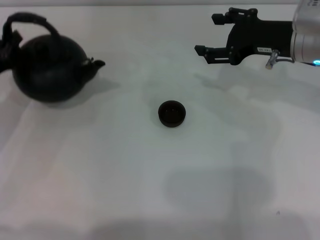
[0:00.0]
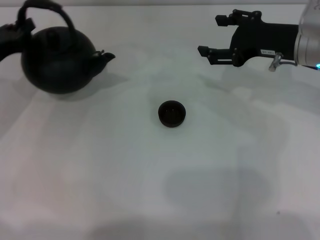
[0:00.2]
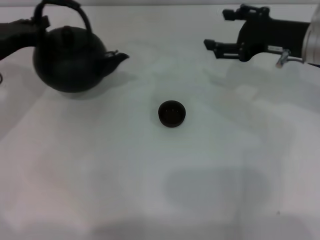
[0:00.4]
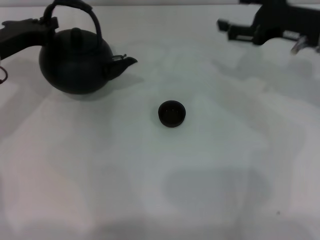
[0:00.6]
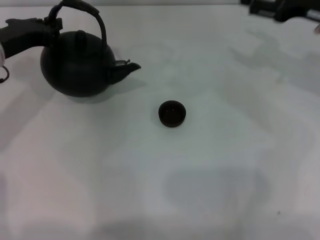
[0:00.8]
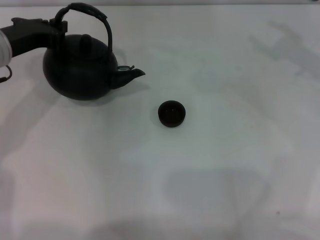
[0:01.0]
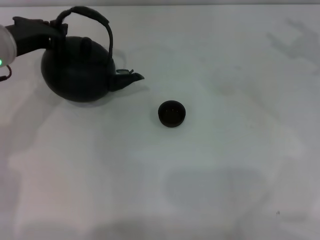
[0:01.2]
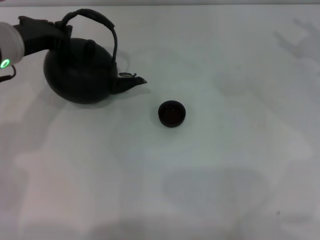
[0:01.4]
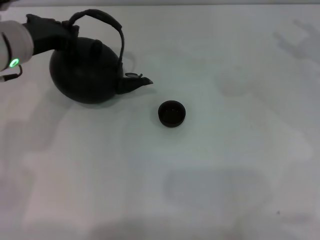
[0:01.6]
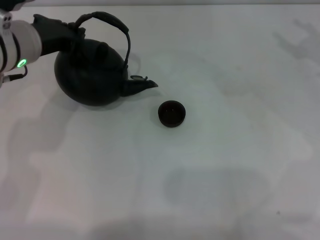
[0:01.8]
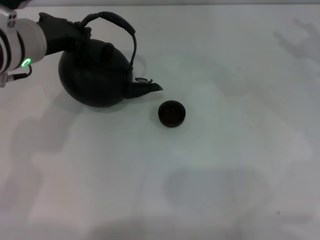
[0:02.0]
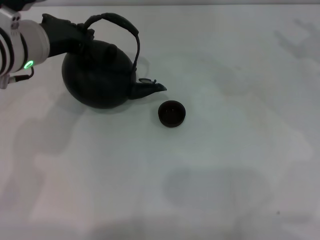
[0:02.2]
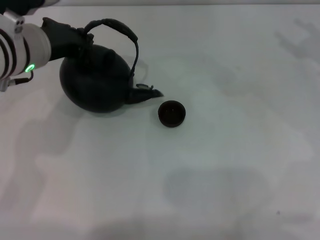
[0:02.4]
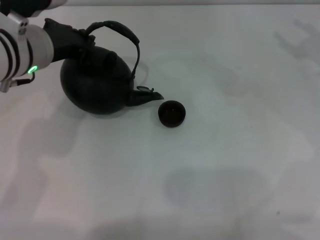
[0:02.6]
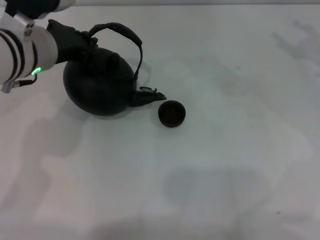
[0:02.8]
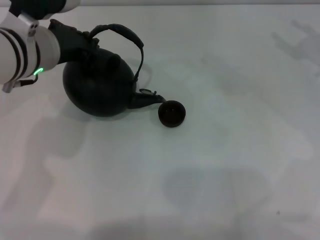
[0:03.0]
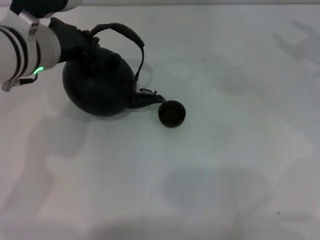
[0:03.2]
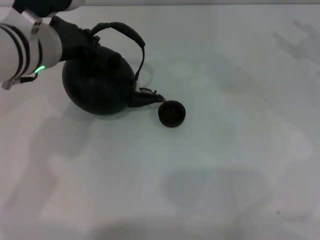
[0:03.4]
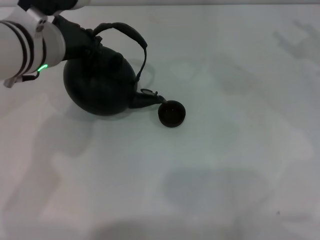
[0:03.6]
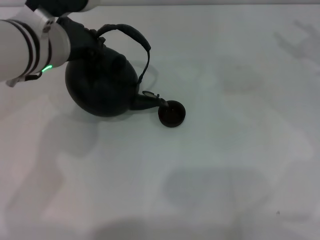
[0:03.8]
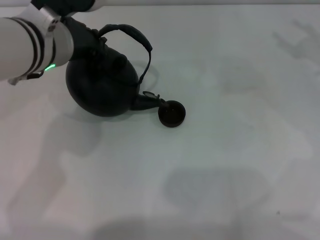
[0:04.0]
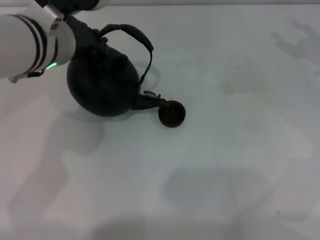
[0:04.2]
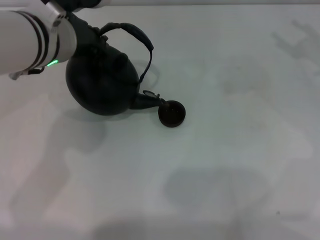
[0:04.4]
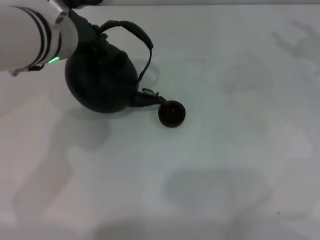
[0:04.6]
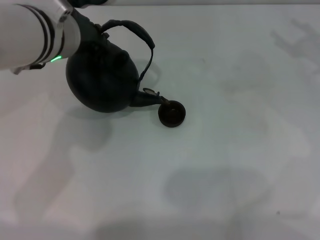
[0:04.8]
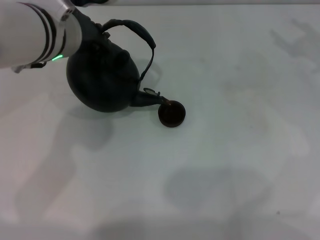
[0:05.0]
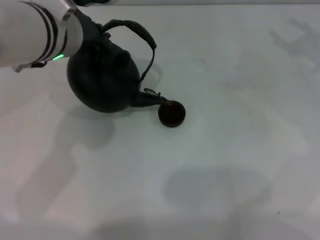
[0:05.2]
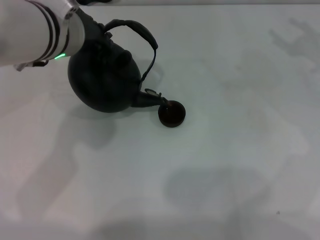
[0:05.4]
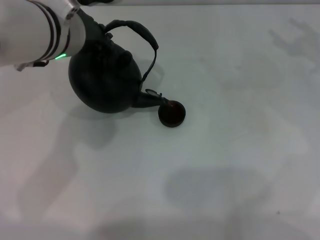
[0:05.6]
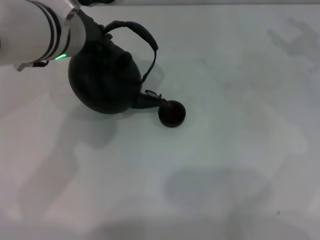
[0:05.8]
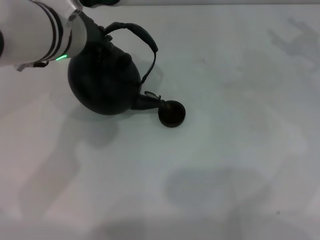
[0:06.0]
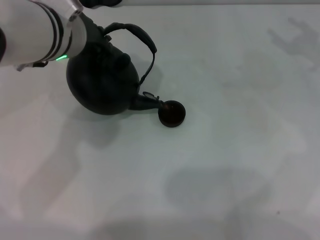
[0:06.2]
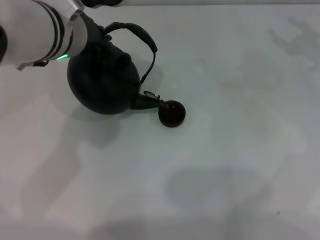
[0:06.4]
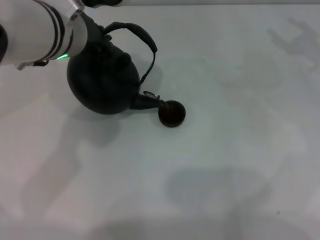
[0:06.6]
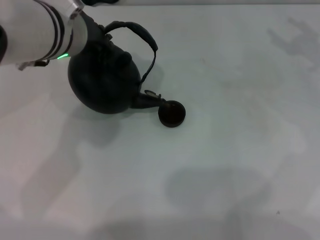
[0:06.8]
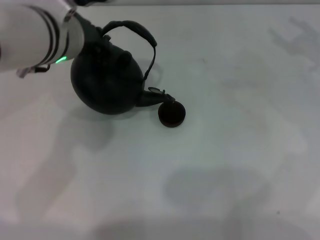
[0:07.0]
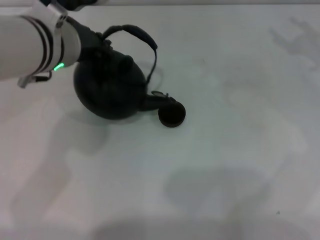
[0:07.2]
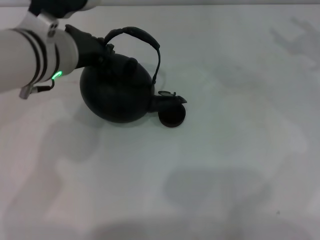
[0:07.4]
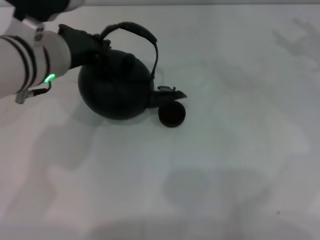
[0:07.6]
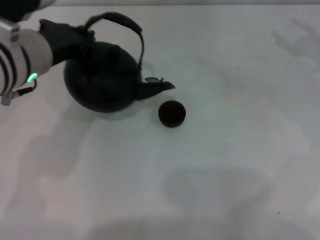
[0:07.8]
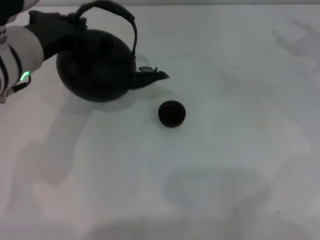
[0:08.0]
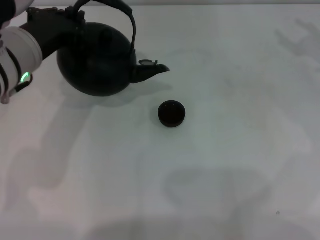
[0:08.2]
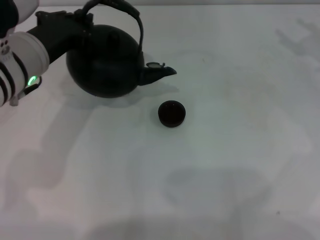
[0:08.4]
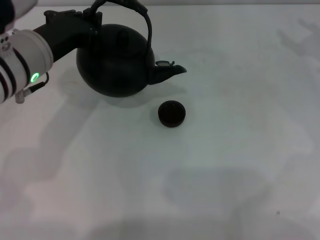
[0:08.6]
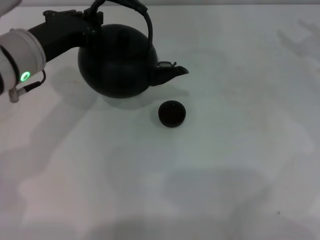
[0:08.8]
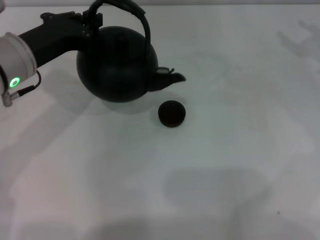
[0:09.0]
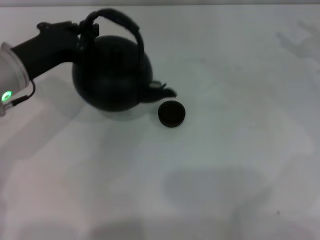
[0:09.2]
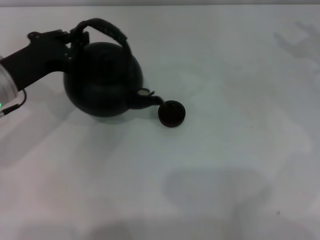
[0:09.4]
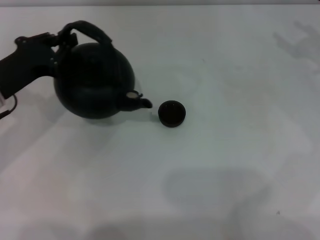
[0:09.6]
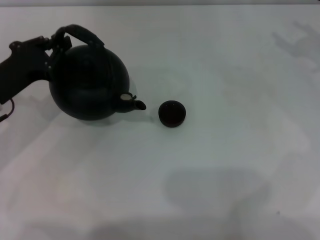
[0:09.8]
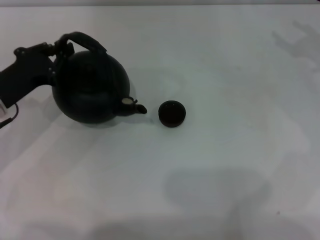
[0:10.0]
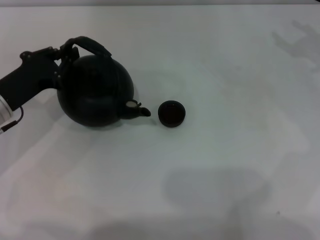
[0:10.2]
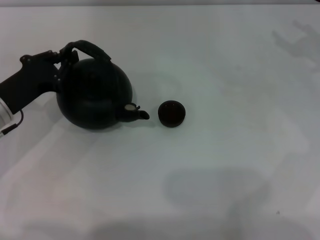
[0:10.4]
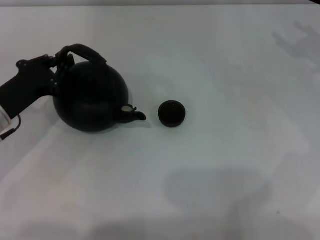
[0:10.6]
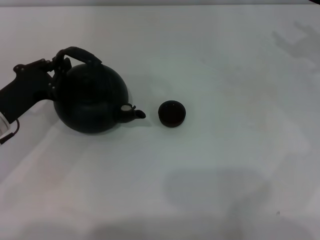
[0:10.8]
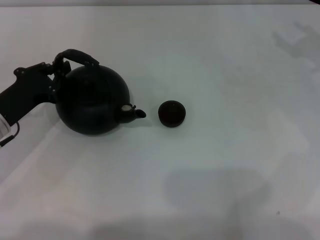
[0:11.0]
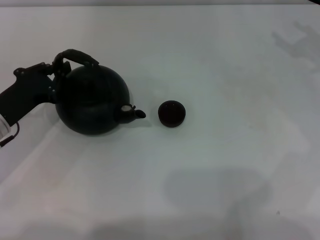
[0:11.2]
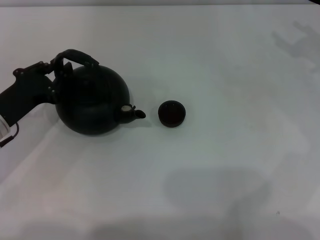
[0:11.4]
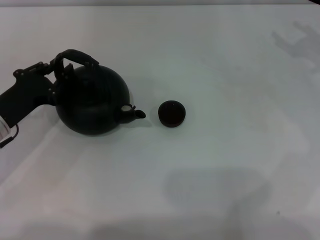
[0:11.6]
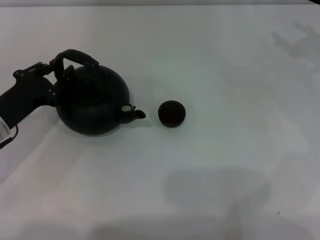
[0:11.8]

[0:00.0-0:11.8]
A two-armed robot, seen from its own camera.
Task of the whole recording: Grasp the handle of the teapot with one hand and pour tea into the teacup.
Step, 0:00.0 to 0:02.0: Pick up the teapot with the left gripper.
Step, 0:02.2 to 0:07.6: Pour tea into the teacup with the left gripper.
0:00.0 to 0:01.4: The right gripper shifts approximately 15 cm to the right. The left gripper travels upward, to the right and forward by approximately 15 cm.
0:01.4 to 0:03.0: The left gripper heads to the right, covering about 5 cm.
0:03.0 to 0:07.4: The grippers stay close to where they were, moving slightly.
0:07.4 to 0:08.8: The left gripper is displaced to the left by some 5 cm.
0:08.8 to 0:10.4: The left gripper heads downward and to the left, covering approximately 15 cm.
0:10.4 to 0:11.8: The grippers stay close to where they were, moving slightly.

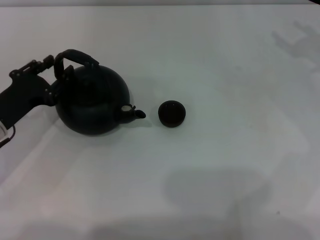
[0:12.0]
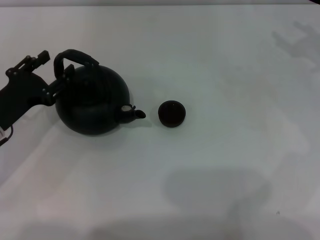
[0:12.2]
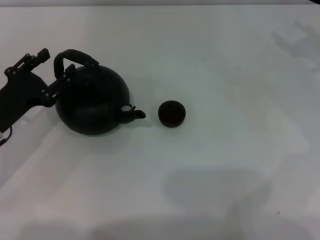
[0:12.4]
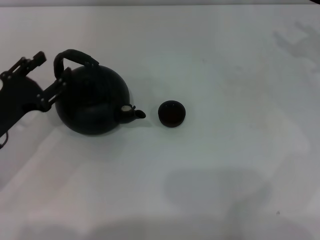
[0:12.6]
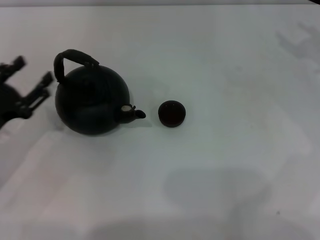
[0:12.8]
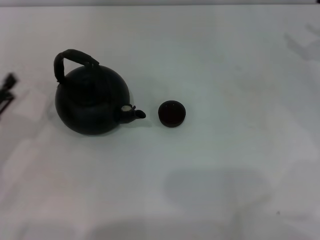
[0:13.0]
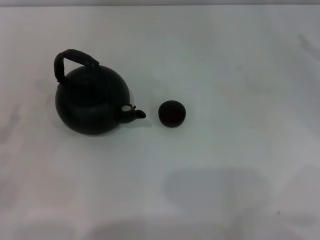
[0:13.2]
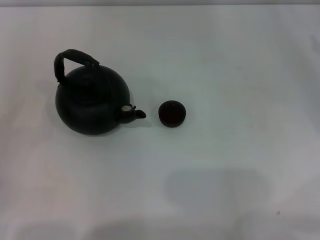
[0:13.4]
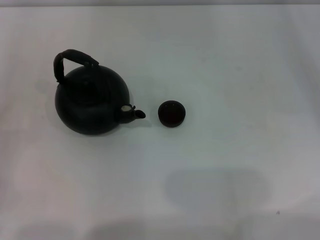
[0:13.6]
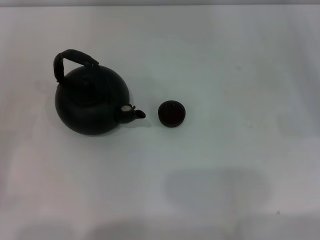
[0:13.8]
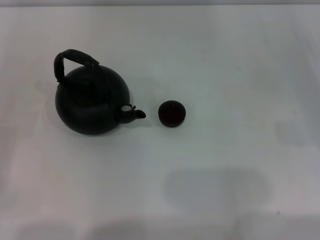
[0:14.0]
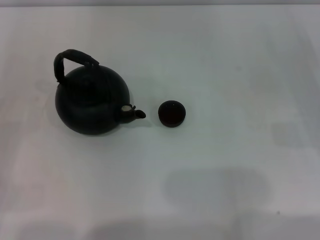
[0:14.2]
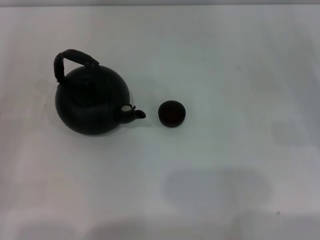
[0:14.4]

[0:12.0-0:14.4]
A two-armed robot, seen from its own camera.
Task of the whole recording: Grasp the handle of the teapot with one hand and pour tea into the teacup.
0:12.0 to 0:13.2: The left gripper heads backward and to the left, covering roughly 15 cm, and opens.

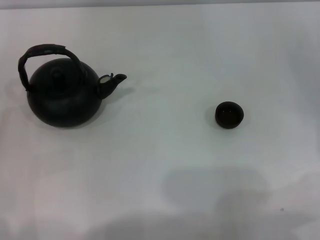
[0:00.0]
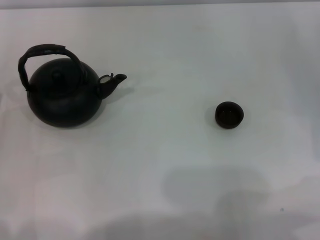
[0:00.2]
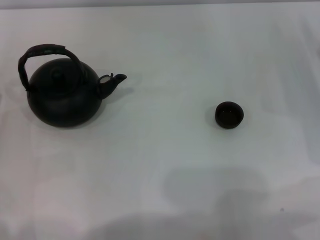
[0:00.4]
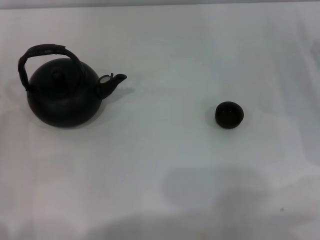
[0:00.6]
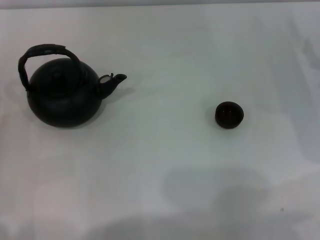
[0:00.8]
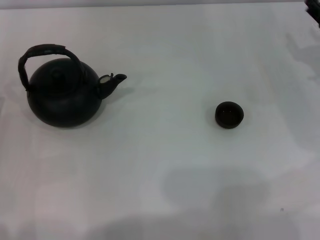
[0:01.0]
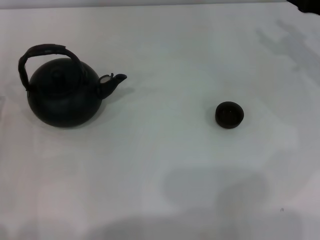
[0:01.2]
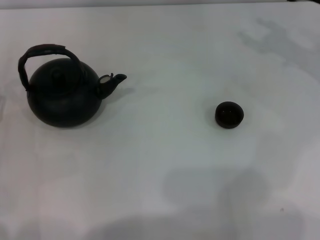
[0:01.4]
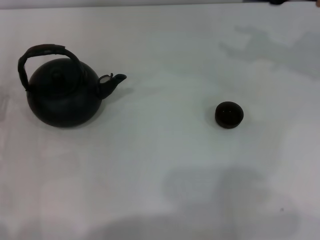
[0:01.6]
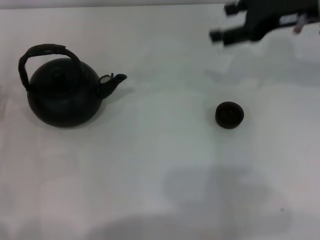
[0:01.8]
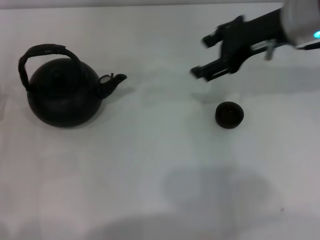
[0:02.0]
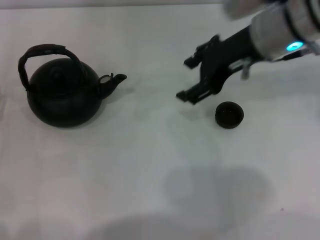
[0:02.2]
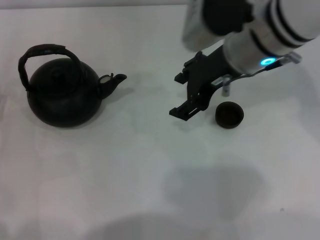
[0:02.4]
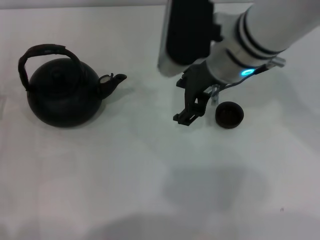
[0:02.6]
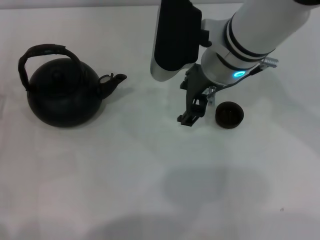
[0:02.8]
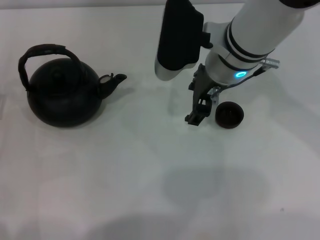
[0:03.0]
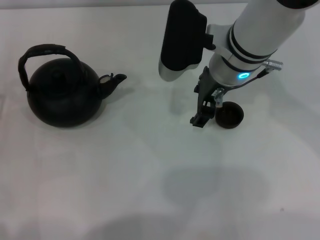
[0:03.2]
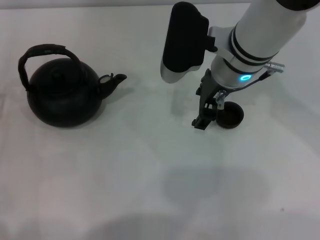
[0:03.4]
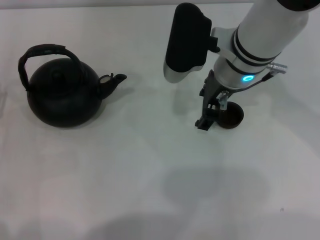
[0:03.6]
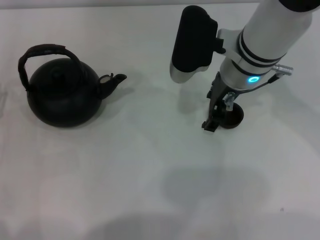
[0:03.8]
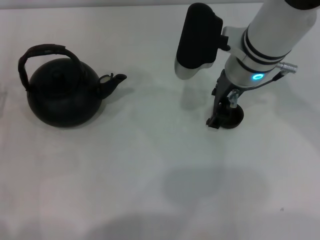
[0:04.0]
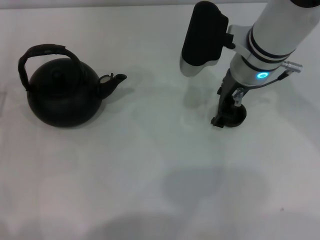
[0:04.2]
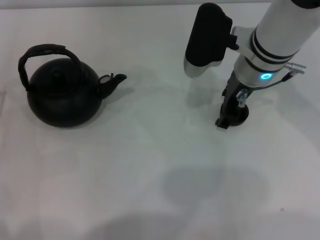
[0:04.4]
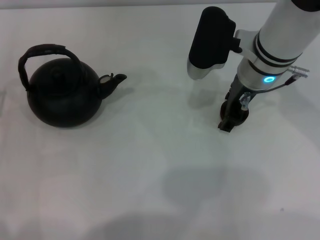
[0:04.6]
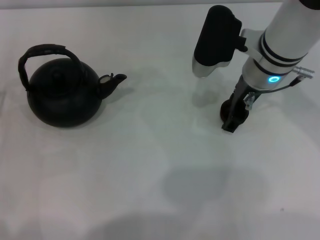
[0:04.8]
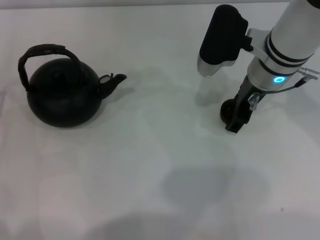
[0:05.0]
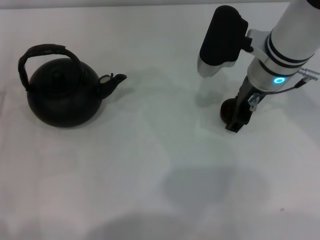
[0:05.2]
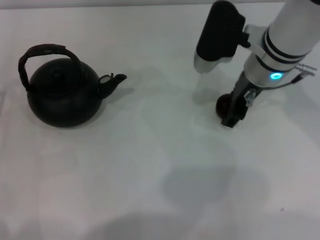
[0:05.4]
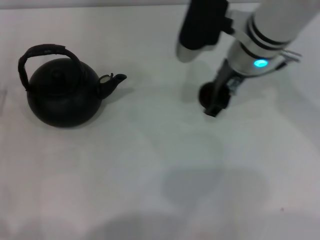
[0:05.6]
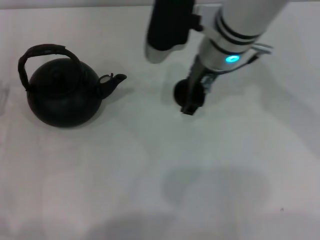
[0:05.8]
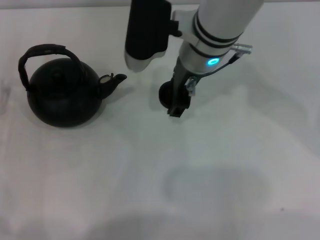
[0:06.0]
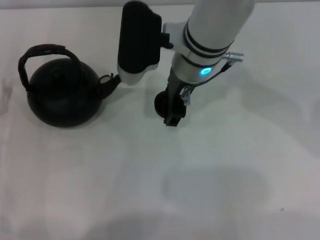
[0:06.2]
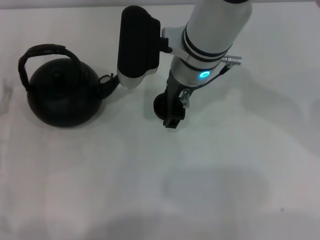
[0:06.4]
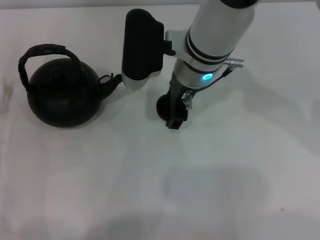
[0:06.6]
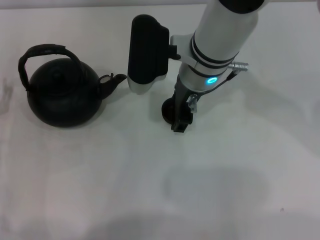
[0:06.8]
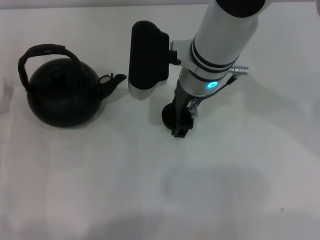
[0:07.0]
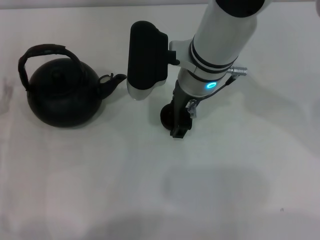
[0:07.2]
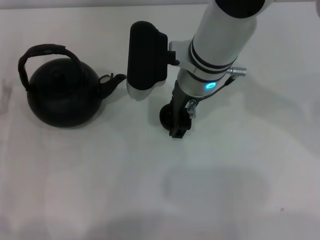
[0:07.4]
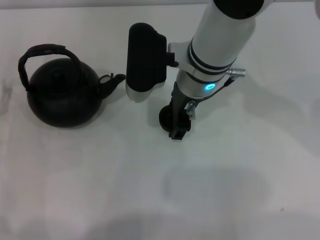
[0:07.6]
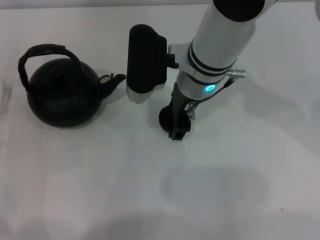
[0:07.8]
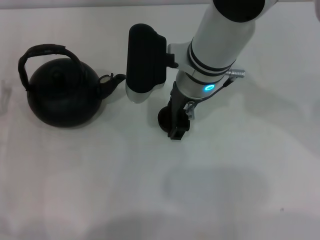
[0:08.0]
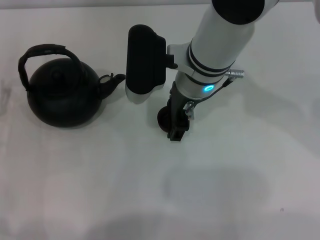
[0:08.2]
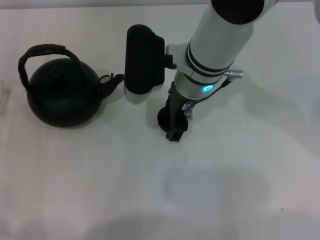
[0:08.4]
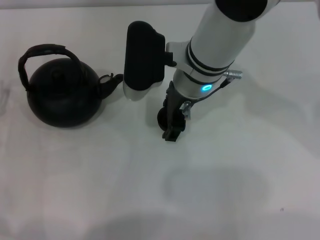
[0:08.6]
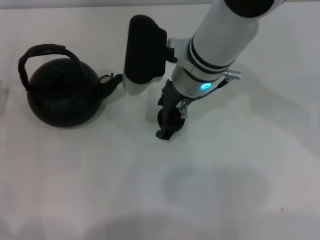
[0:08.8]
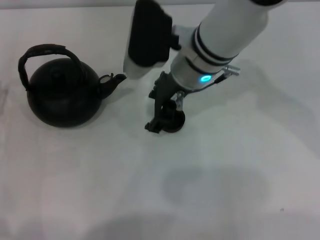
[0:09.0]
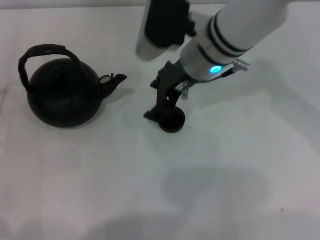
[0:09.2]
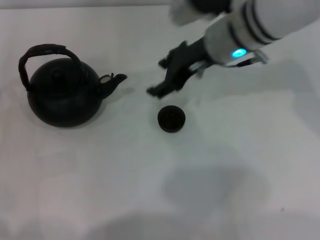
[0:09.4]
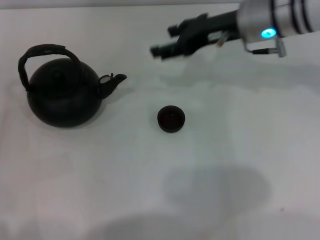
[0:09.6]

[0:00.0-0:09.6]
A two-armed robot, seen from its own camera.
Task of the whole recording: Grasp the handle of the teapot with one hand and pour tea into the teacup.
Step, 0:00.0 to 0:05.2: Pick up the teacup with the right gripper.
Step, 0:05.6 to 0:09.4: Place the teacup in the center of view with the right gripper.
0:00.0 to 0:01.6: The right gripper moves upward, to the left and forward, roughly 20 cm.
0:01.6 to 0:03.2: The right gripper is displaced to the left by roughly 20 cm.
0:03.2 to 0:04.8: The right gripper moves roughly 5 cm.
0:04.8 to 0:06.4: The right gripper moves to the left, about 10 cm.
0:06.4 to 0:08.0: There are only small adjustments of the grippers.
0:08.0 to 0:09.6: The right gripper goes about 10 cm to the right.
